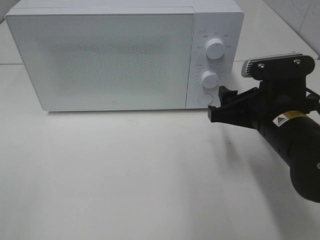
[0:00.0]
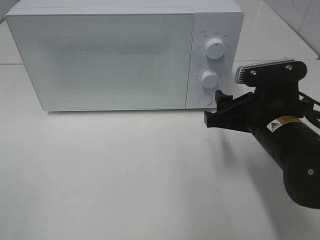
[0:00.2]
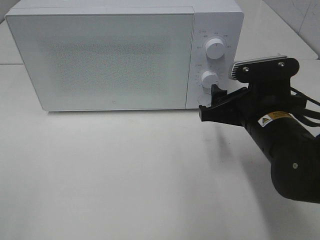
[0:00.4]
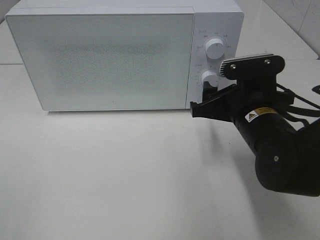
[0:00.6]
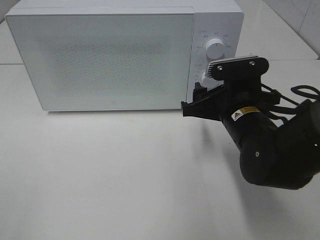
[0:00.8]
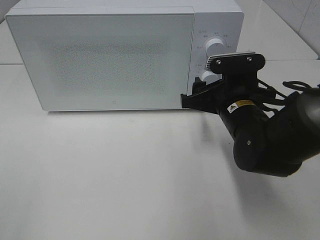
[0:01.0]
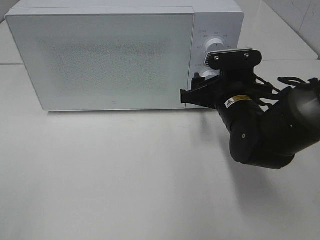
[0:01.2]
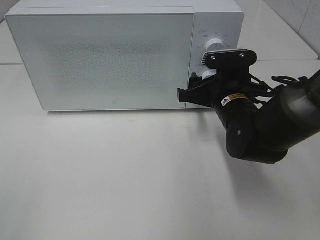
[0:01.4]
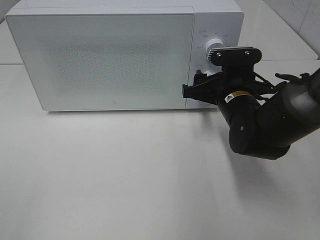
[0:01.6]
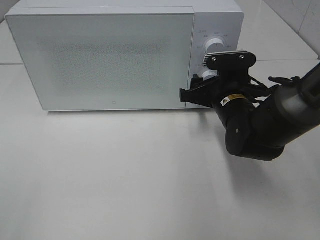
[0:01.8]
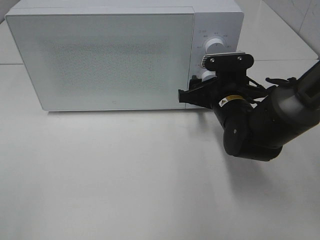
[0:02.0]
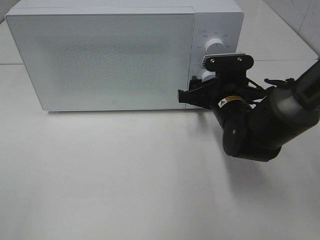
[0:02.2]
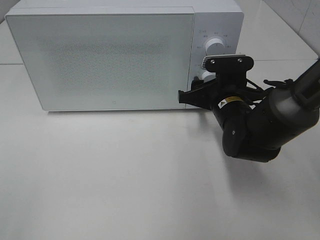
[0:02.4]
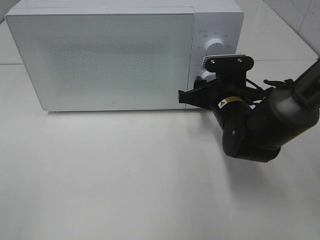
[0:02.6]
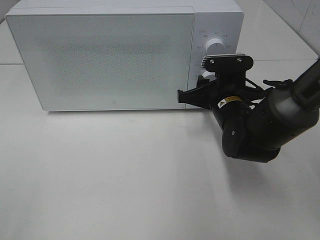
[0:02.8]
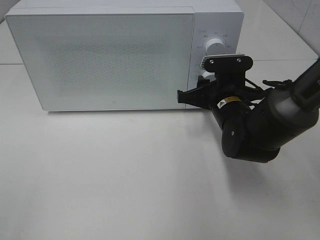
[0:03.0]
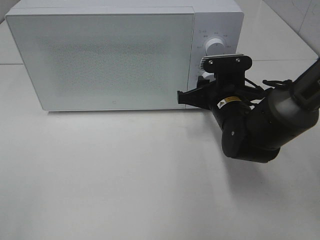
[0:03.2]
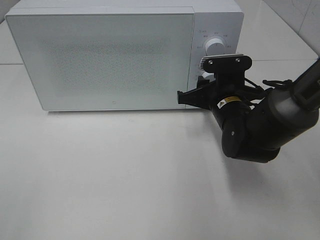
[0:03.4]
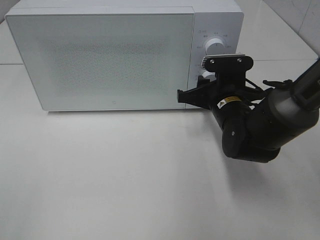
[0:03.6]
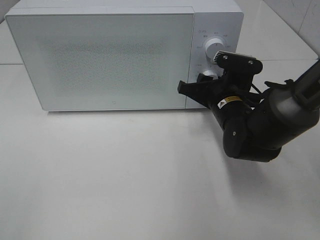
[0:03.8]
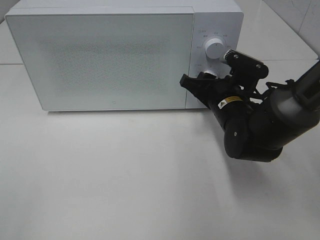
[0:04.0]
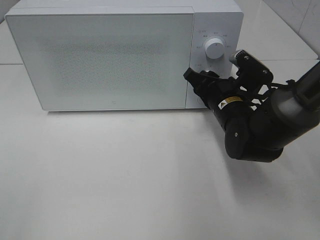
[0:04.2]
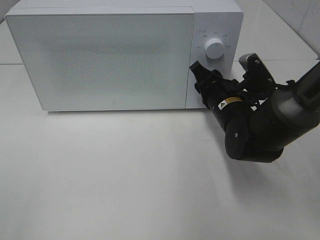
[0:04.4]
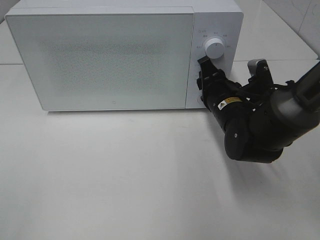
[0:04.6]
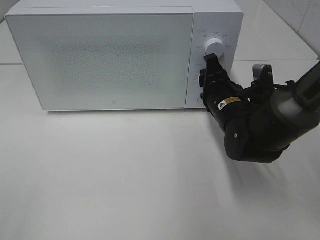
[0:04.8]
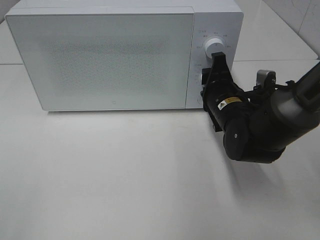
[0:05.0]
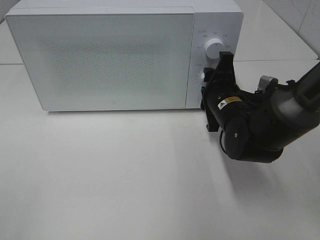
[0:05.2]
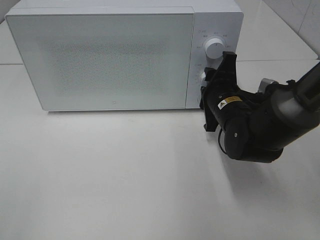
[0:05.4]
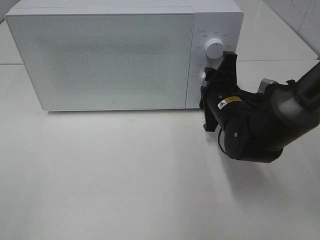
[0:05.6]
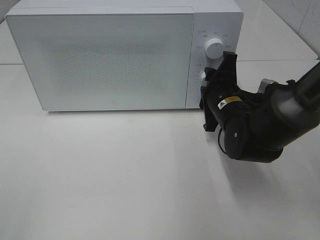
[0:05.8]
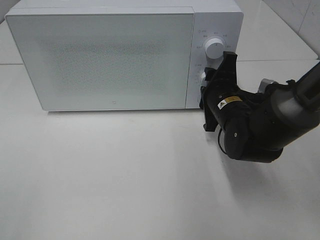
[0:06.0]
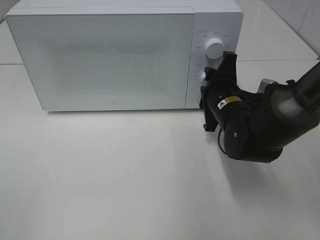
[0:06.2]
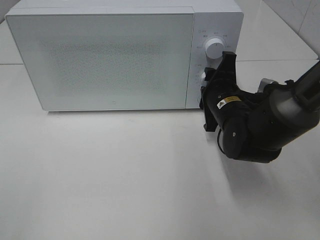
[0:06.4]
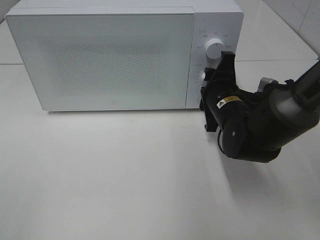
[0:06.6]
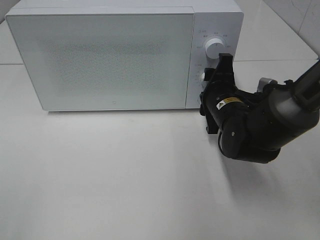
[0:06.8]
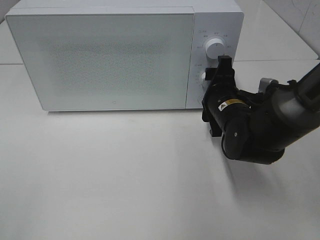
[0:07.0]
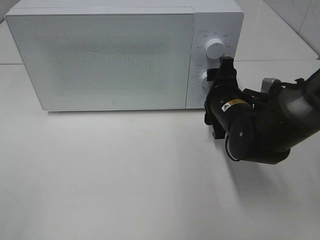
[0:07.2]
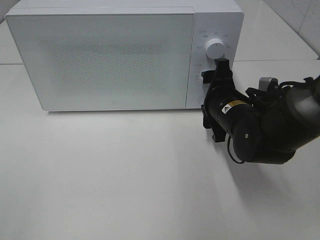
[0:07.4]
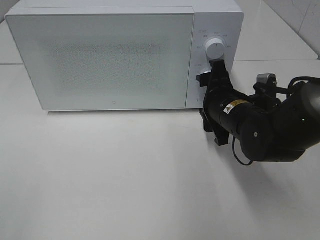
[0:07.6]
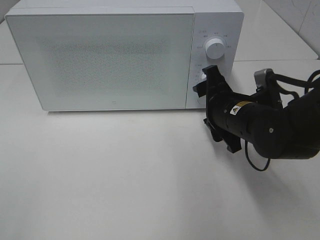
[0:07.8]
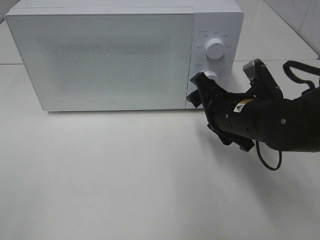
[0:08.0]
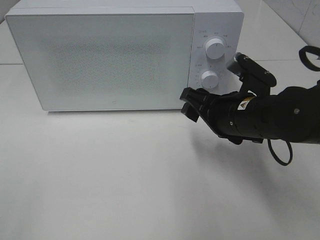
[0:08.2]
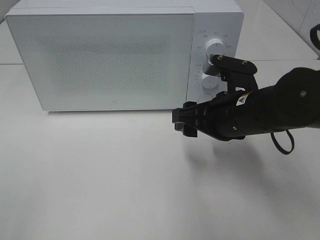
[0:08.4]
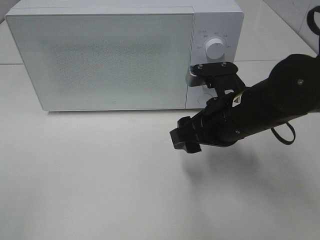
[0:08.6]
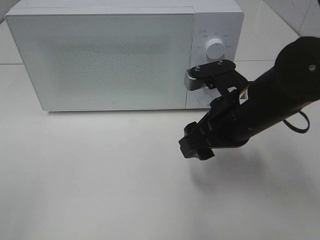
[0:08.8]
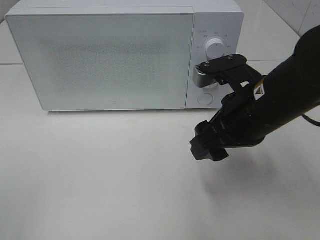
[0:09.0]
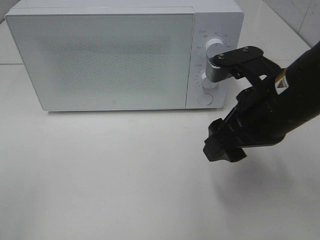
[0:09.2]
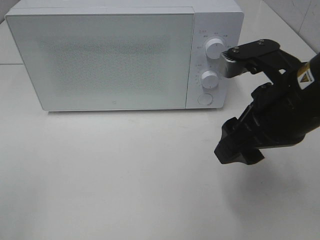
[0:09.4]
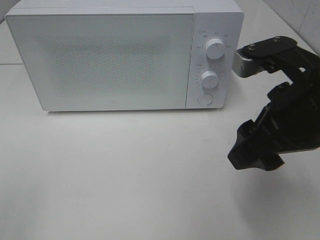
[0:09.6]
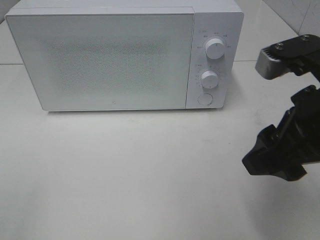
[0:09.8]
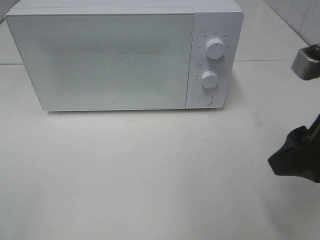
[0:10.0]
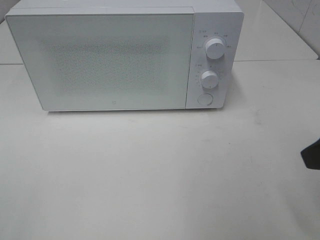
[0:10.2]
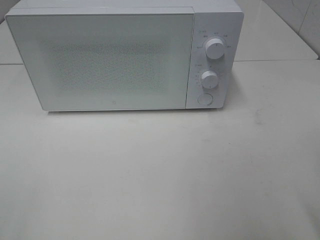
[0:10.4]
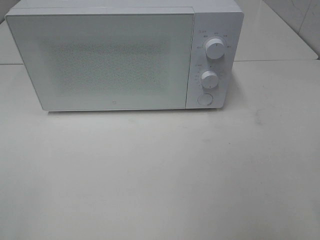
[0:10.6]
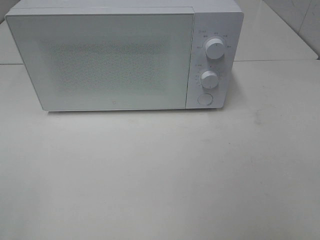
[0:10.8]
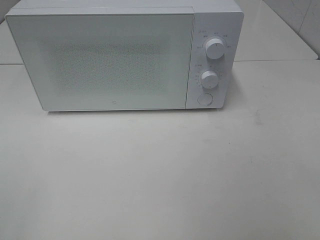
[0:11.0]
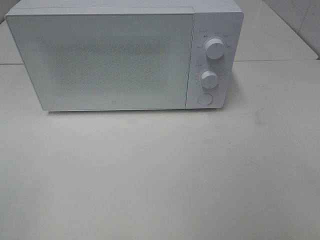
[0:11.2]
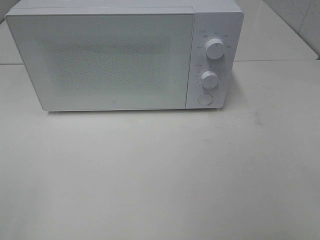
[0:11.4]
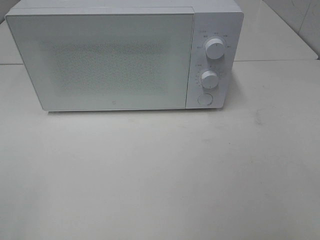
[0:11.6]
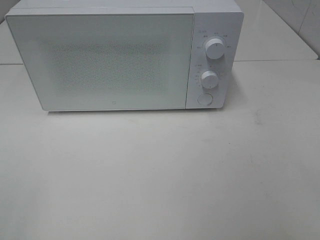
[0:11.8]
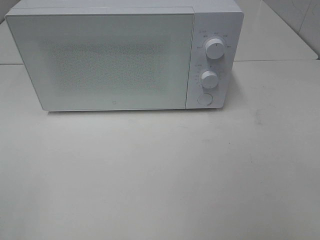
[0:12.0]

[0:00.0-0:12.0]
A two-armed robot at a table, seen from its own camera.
Task of the whole recording: Heat the burger.
Step, 0:00.0 to 0:07.0: Right hand: twist timer button.
0:00.0 to 0:01.6: The right gripper shifts roughly 10 cm forward.
0:01.6 to 0:03.0: The right gripper closes up.
0:07.6 to 0:09.0: The right gripper is displaced upward and backward by about 10 cm.
0:09.0 to 0:10.4: The right gripper travels to the right, backward and upward by some 20 cm.

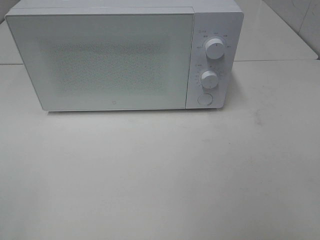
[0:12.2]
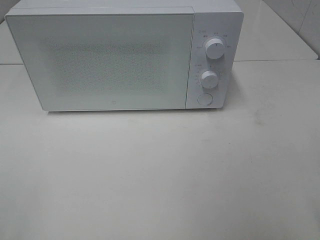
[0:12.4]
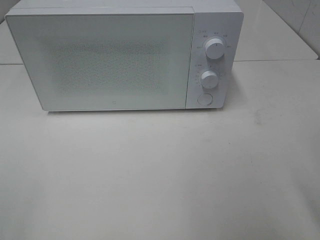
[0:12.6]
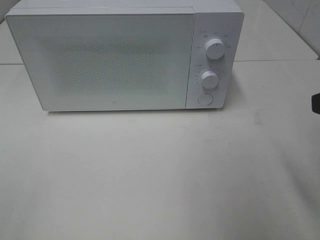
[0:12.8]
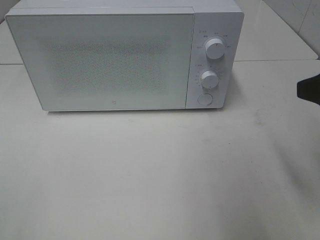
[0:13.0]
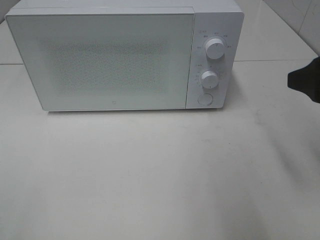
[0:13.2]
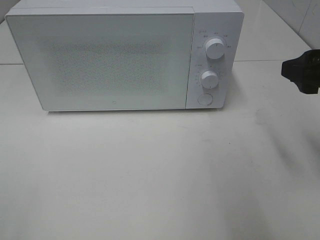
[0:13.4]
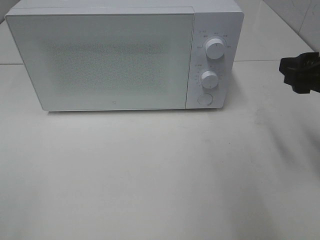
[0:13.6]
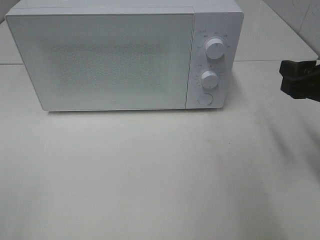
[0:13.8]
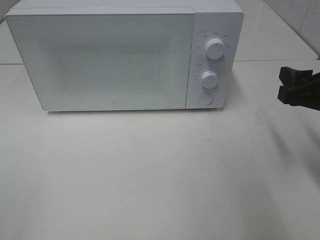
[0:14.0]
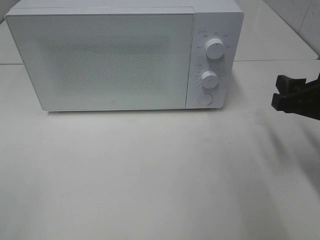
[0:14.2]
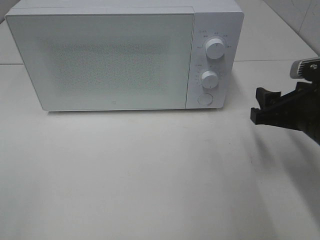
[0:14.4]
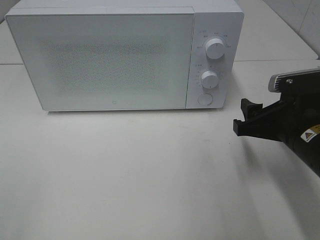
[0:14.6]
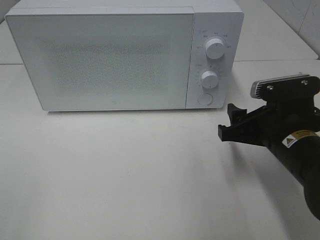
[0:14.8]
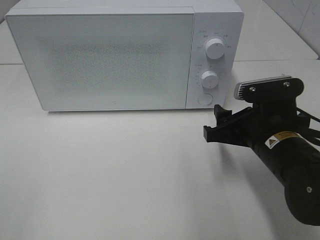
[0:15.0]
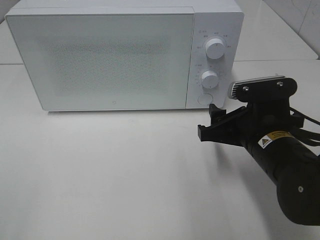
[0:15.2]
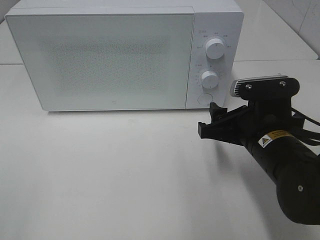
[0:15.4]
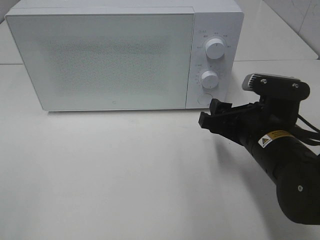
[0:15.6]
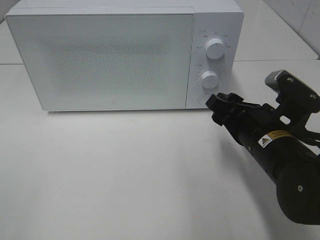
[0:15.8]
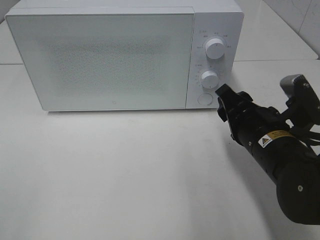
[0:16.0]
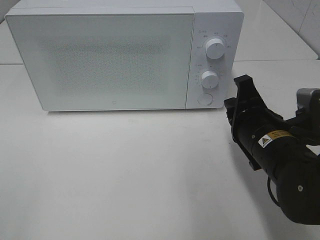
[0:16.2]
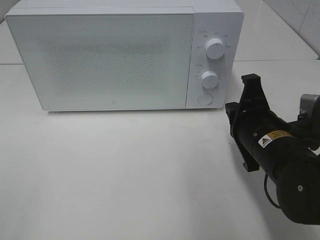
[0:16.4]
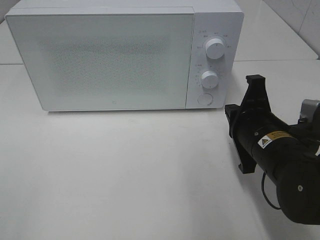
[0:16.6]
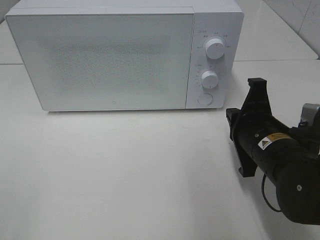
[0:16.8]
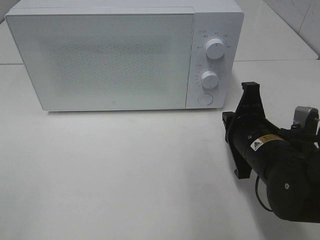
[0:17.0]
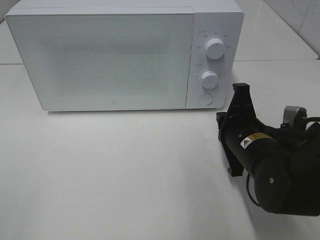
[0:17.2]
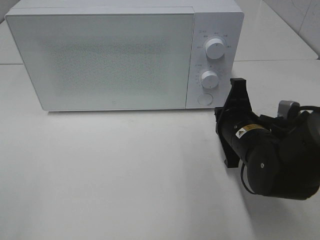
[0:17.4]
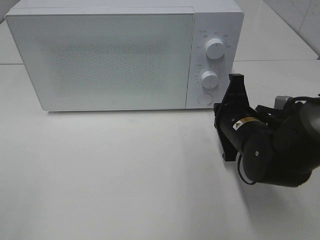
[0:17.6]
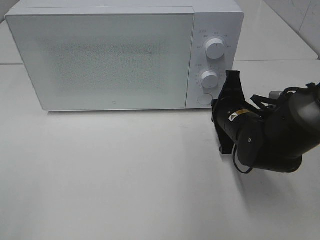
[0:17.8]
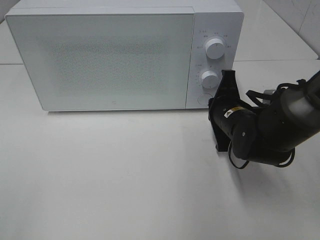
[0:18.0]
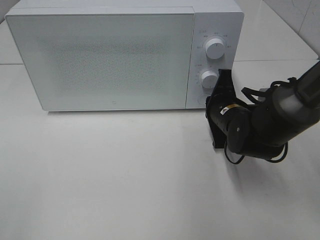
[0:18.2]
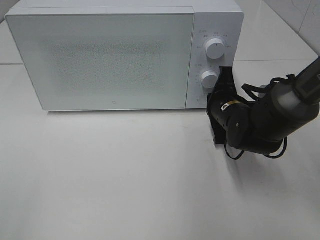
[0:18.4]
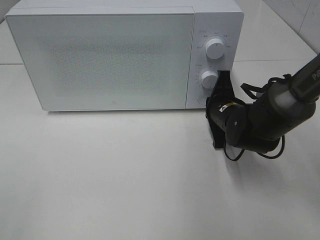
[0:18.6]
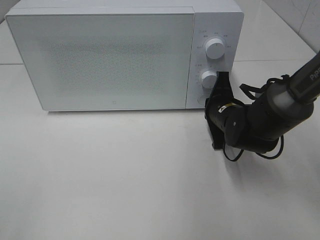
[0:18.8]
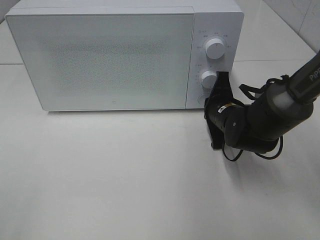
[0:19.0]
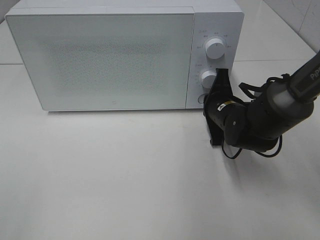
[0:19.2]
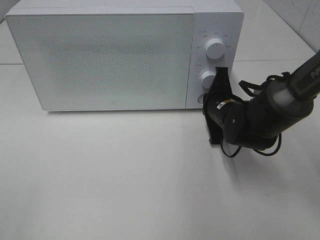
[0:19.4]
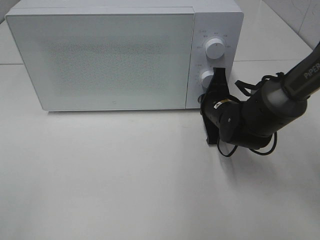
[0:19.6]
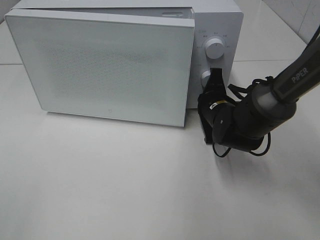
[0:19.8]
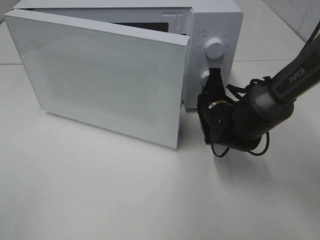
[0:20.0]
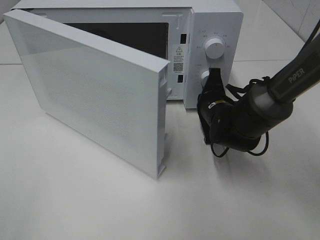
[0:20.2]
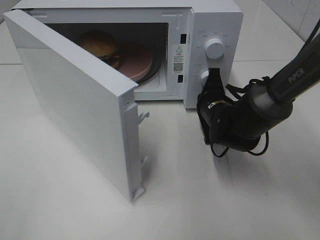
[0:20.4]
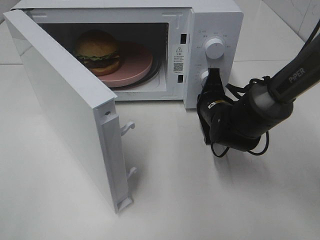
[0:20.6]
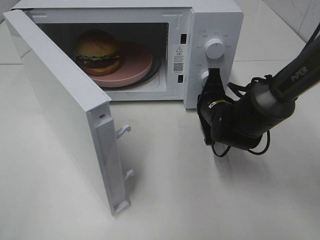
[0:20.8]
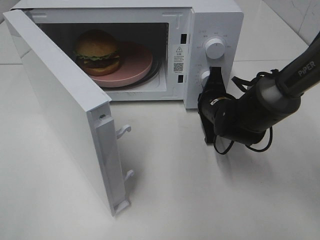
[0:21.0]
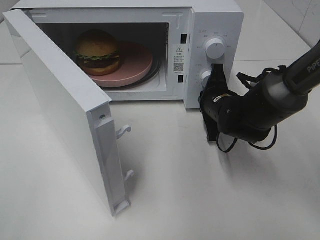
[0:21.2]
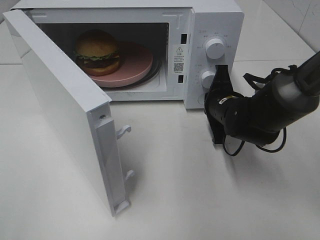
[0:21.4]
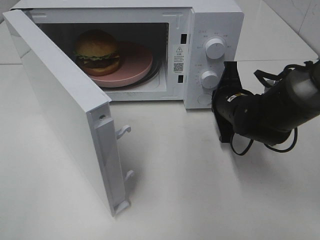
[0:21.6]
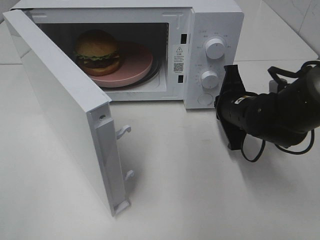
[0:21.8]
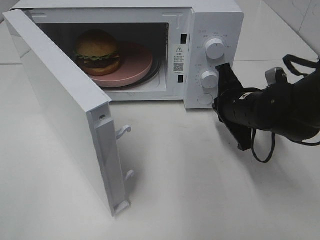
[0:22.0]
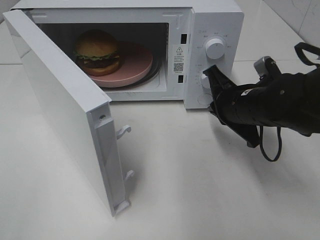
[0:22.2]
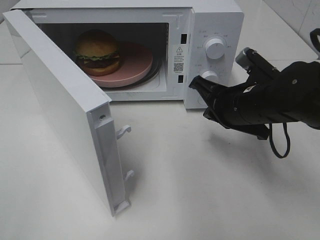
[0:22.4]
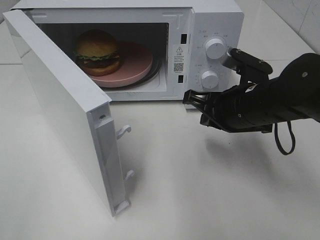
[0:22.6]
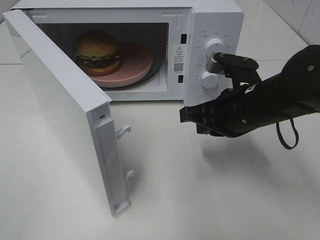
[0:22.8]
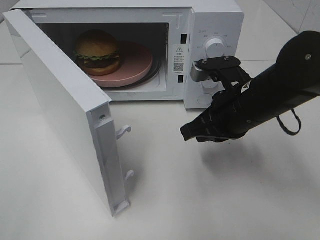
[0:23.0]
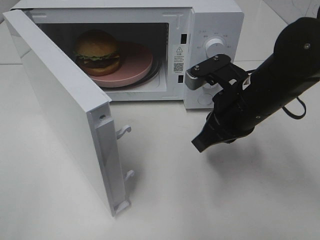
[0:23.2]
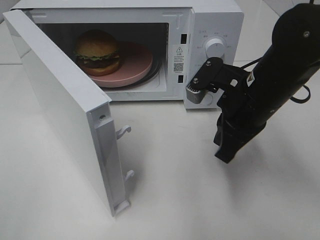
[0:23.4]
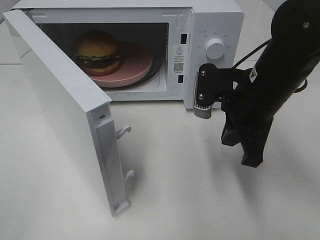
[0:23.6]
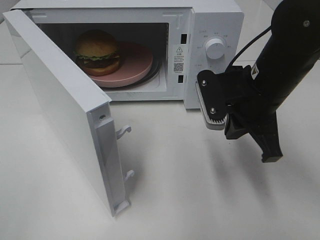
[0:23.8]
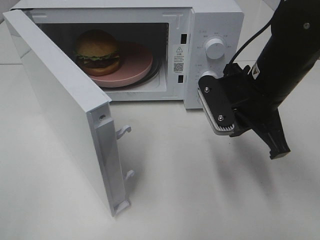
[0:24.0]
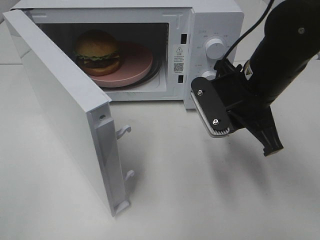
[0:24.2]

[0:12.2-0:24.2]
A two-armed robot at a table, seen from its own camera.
Task of the whole recording: Heat the burger.
Step, 0:12.2 to 0:21.4: Right hand: press the switch.
0:12.2 to 0:13.8: The right gripper moves forward, roughly 15 cm.
0:13.8 to 0:15.2: The right gripper shifts some 15 cm to the left and downward.
0:15.2 to 0:16.6: The right gripper closes its fingers.
0:16.6 to 0:18.2: The right gripper is displaced forward by about 10 cm.
0:18.2 to 0:19.8: The grippers stay close to where they were, moving slightly.
0:21.2 to 0:22.6: The right gripper is displaced backward and upward by about 10 cm.
